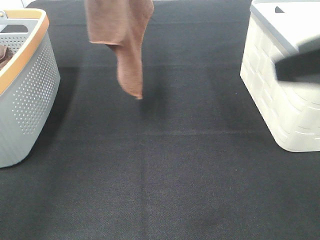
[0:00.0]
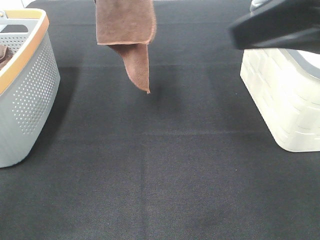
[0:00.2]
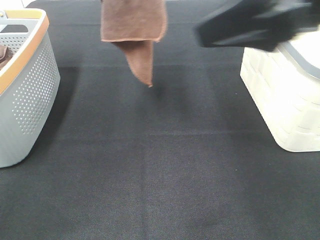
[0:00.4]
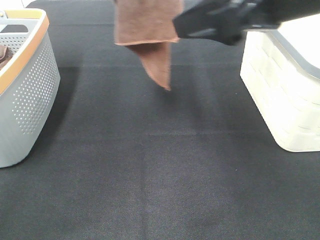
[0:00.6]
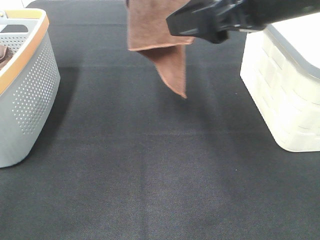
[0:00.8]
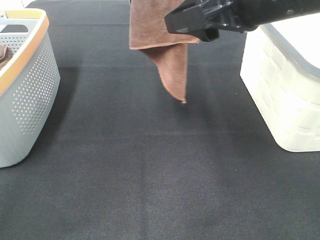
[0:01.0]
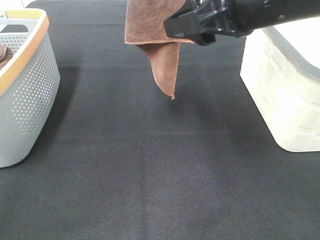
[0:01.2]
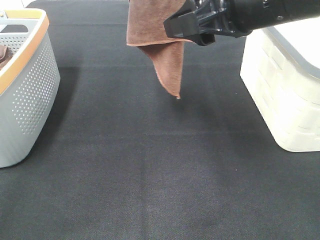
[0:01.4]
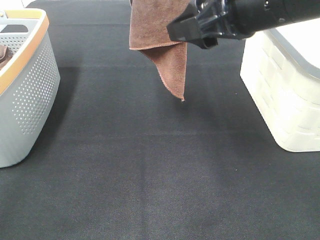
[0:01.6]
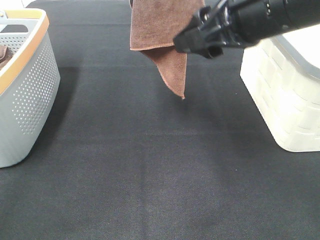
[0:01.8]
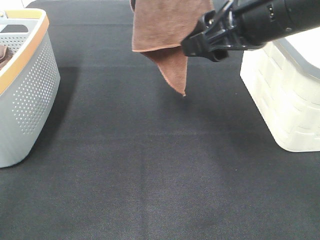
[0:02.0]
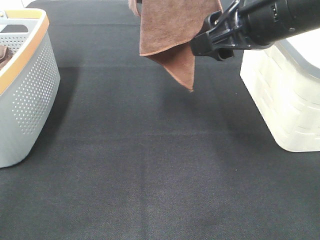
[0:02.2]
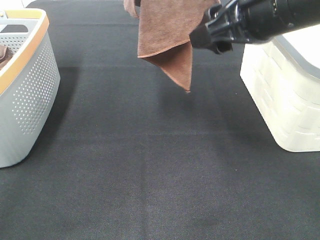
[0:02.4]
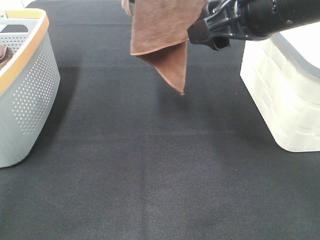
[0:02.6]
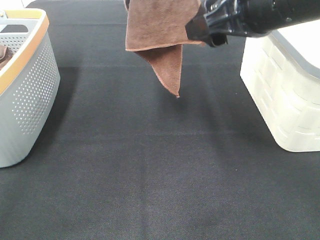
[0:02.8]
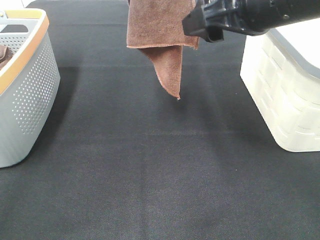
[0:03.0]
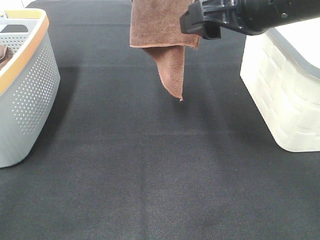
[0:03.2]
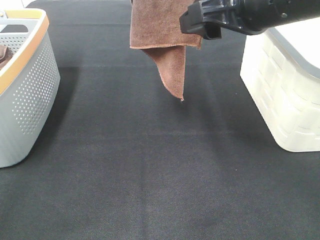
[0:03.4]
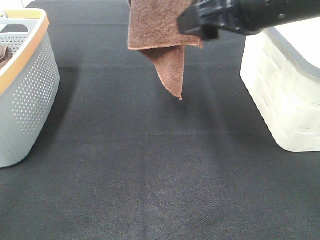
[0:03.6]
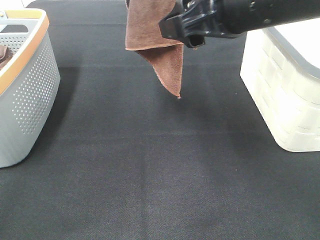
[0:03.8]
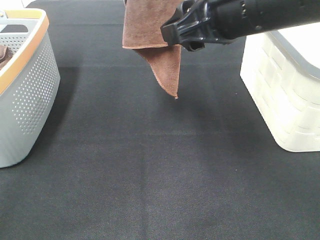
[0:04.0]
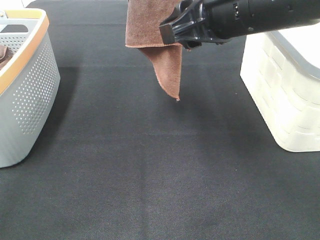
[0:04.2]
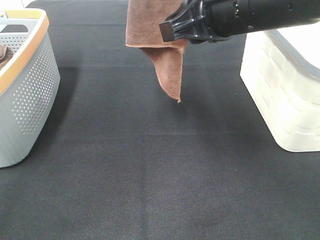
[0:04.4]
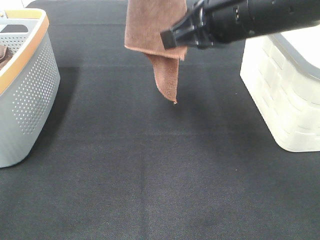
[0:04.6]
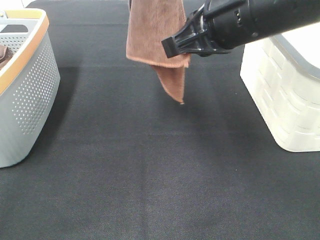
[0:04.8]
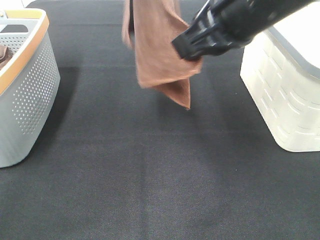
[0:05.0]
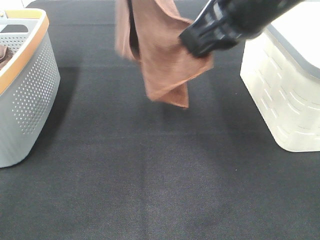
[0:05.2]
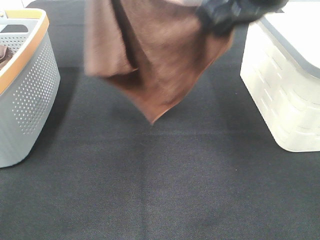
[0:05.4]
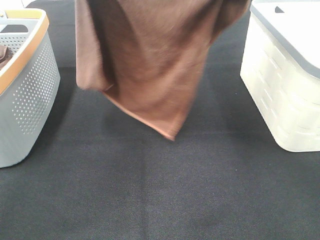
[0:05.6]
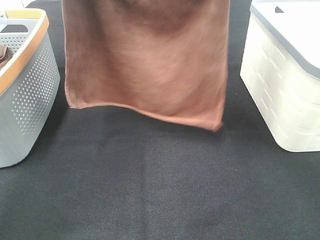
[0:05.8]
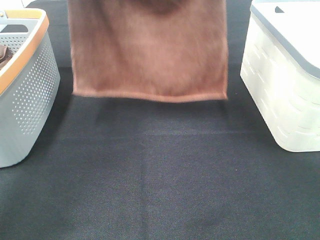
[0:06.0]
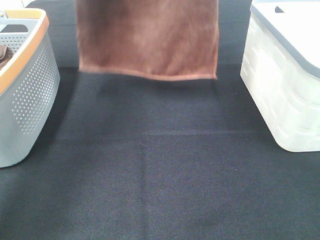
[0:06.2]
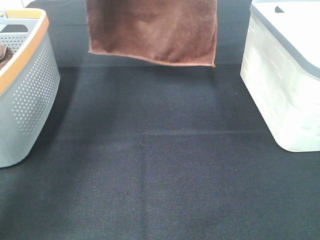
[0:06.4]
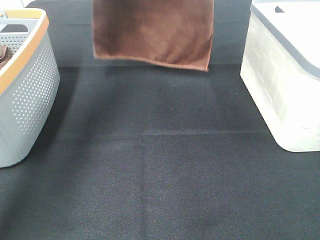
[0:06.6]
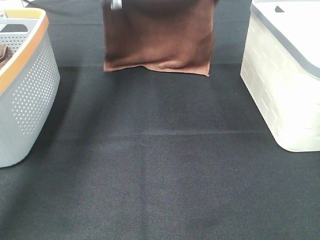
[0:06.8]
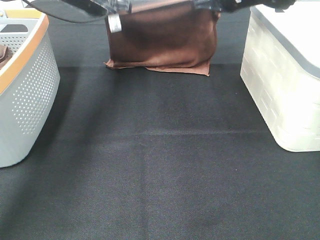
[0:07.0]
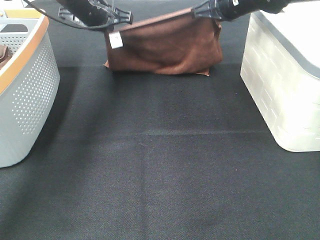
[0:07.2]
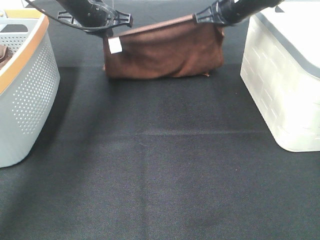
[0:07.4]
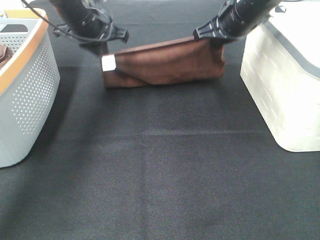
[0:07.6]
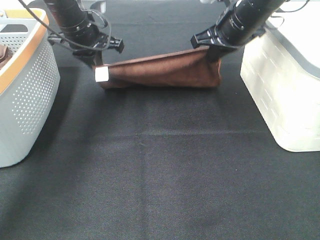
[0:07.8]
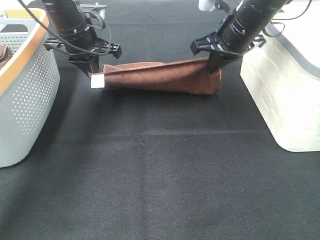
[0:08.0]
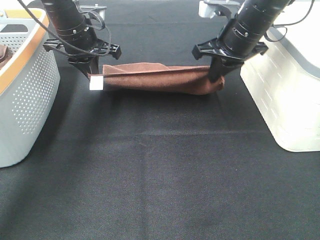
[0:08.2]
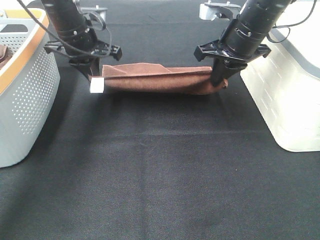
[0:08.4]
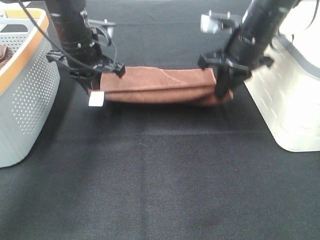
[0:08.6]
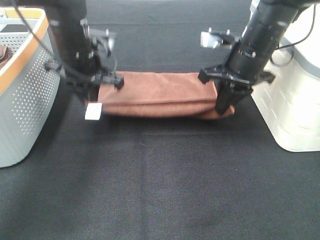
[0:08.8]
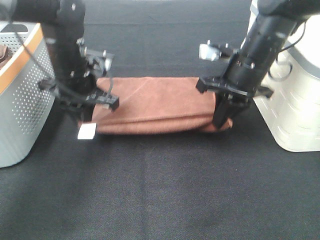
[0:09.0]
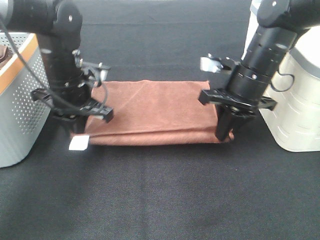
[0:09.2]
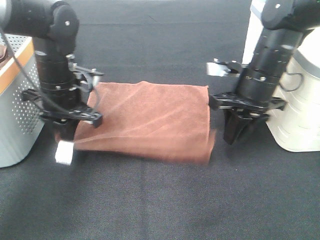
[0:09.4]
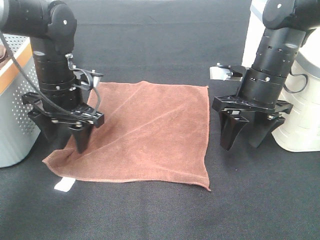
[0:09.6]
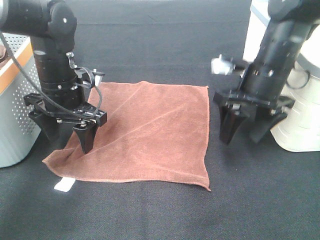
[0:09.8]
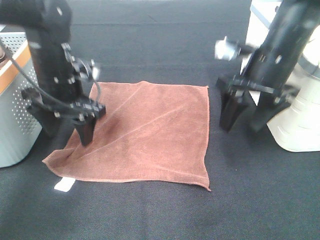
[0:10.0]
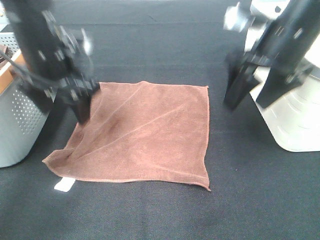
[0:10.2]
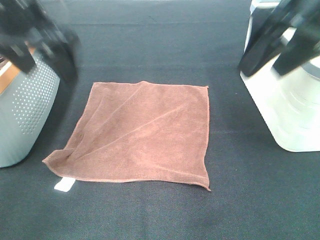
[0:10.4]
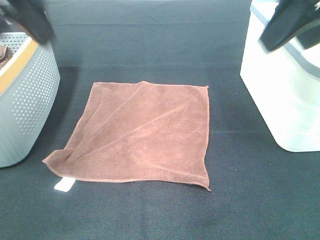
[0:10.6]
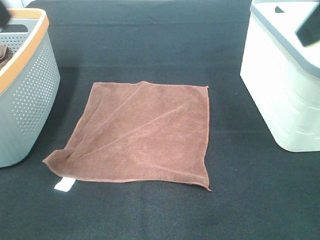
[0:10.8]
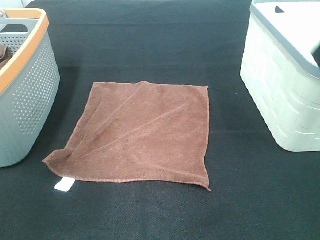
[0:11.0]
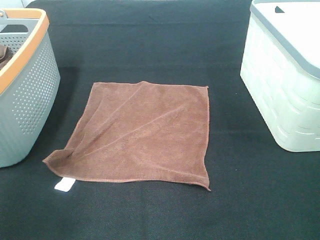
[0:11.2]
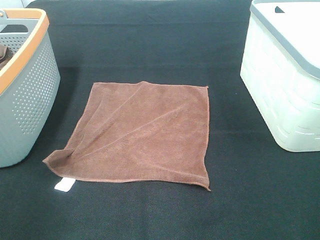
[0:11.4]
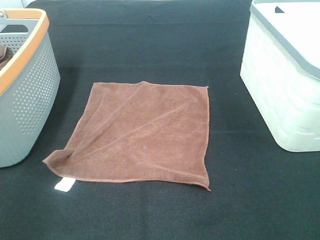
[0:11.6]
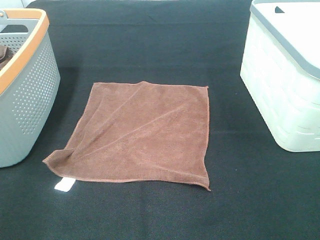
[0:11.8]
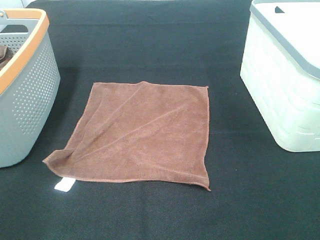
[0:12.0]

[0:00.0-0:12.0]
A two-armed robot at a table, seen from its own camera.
Task of the whole recording: Remove the towel and place it.
Step, 0:00.0 to 0:02.6: Right hand: grab a corner of the brown towel and straighten it.
Step, 0:02.8 to 0:05.4: Left hand: spread the brown towel flat on the table.
Step, 0:02.8 to 0:05.4: Right hand: spread the brown towel flat on the table.
0:00.0 to 0:01.6: The left gripper heads to the right, covering some 5 cm; the right gripper heads forward and to the left, covering some 15 cm.
0:01.6 to 0:03.0: There are only small adjustments of the grippers.
0:03.0 to 0:04.4: The right gripper closes.
0:04.4 to 0:06.0: The right gripper heads upward and forward, covering about 10 cm; the left gripper shifts approximately 15 cm downward, forward and to the left.
0:06.0 to 0:07.6: The left gripper travels downward by approximately 20 cm. Meanwhile the right gripper is displaced downward and forward by roughly 20 cm.
0:07.6 to 0:09.0: Both grippers travel together backward and downward, some 10 cm.
0:09.0 to 0:10.4: The right gripper moves upward and backward, about 20 cm, and opens up. The left gripper moves upward, some 15 cm, and opens.
0:10.4 to 0:12.0: The right gripper shifts about 25 cm backward. The left gripper travels backward and to the left by some 30 cm.

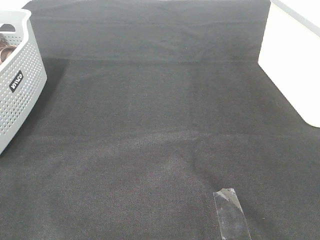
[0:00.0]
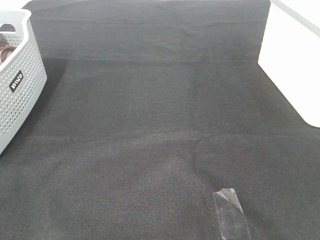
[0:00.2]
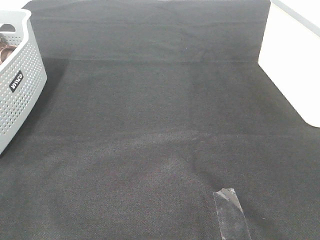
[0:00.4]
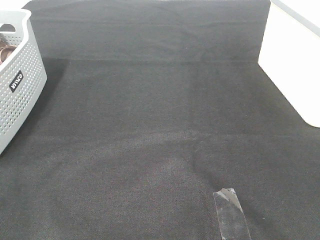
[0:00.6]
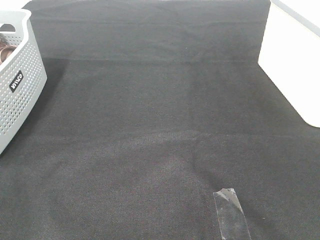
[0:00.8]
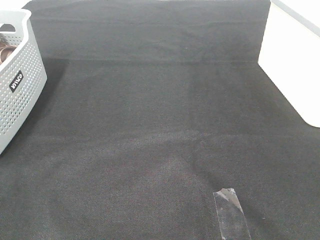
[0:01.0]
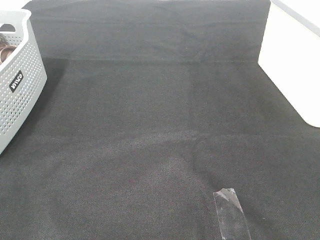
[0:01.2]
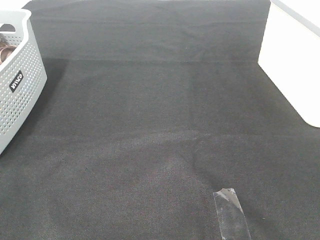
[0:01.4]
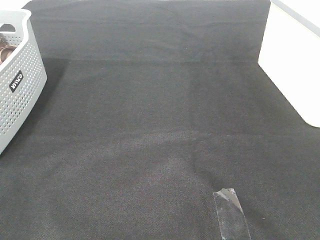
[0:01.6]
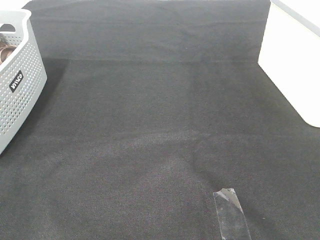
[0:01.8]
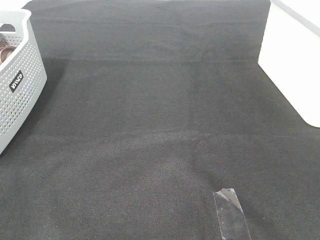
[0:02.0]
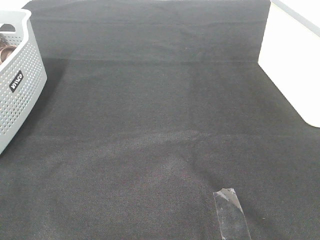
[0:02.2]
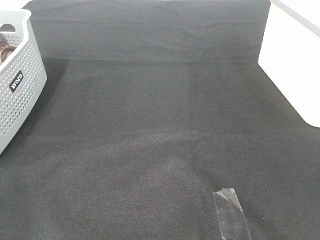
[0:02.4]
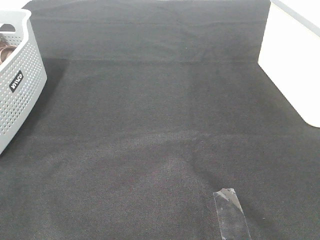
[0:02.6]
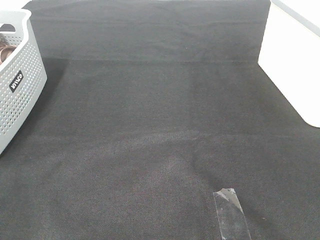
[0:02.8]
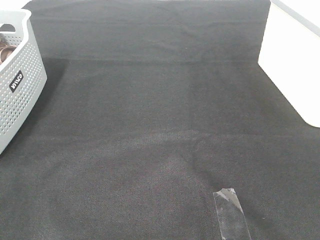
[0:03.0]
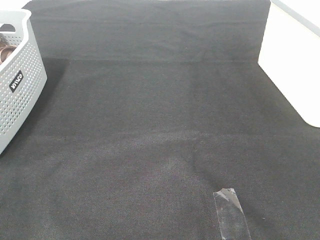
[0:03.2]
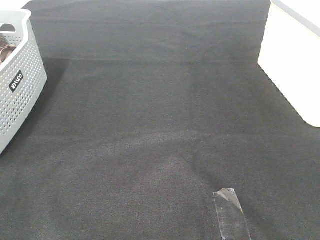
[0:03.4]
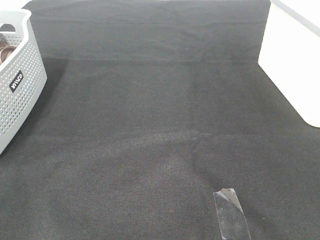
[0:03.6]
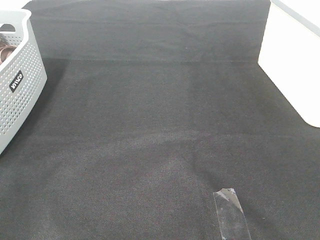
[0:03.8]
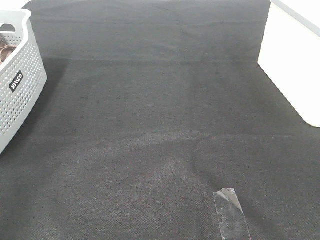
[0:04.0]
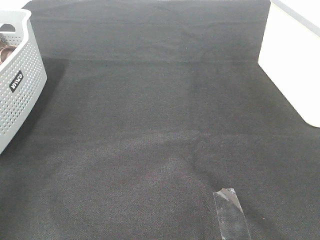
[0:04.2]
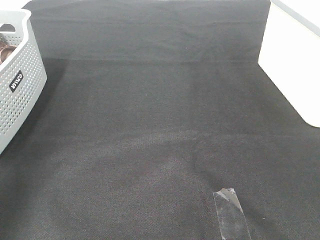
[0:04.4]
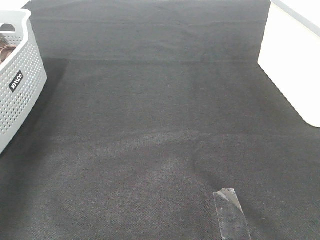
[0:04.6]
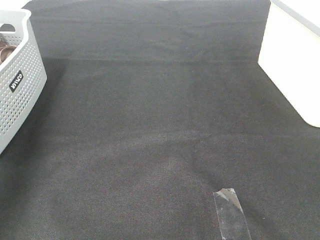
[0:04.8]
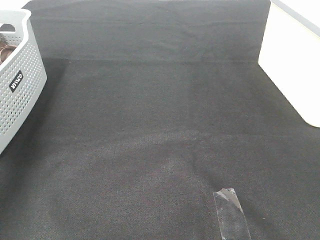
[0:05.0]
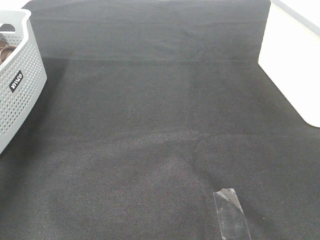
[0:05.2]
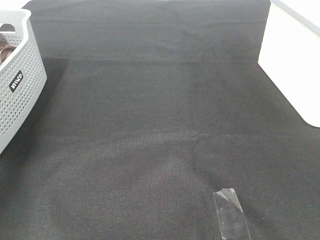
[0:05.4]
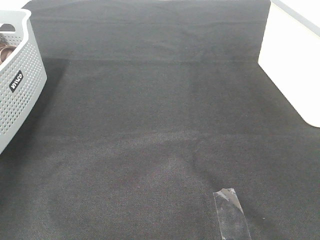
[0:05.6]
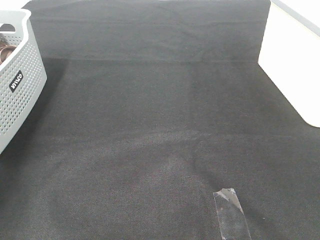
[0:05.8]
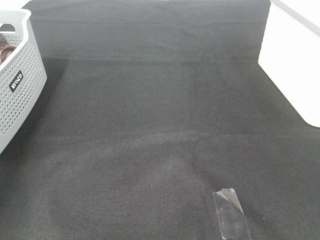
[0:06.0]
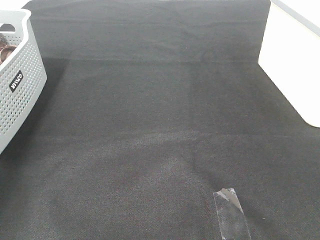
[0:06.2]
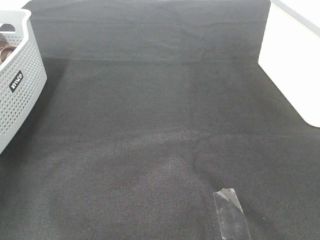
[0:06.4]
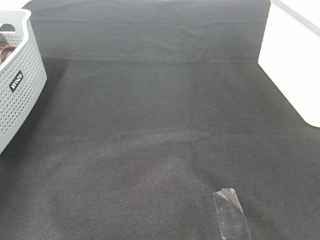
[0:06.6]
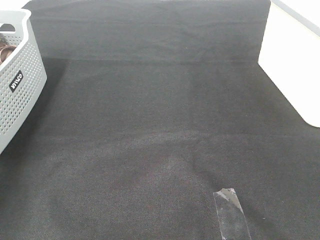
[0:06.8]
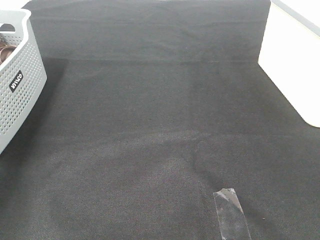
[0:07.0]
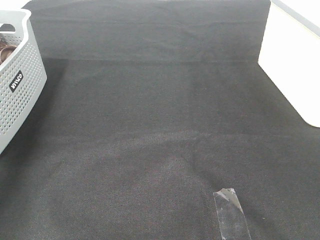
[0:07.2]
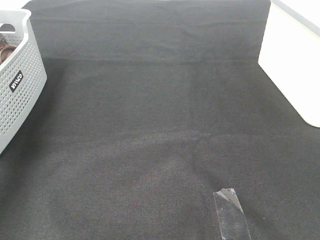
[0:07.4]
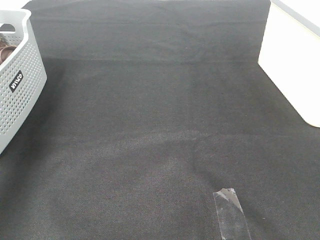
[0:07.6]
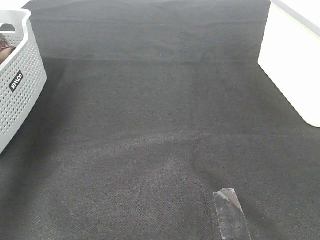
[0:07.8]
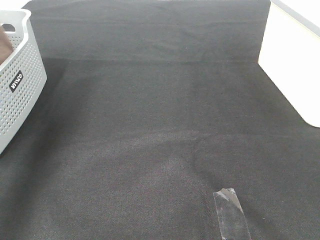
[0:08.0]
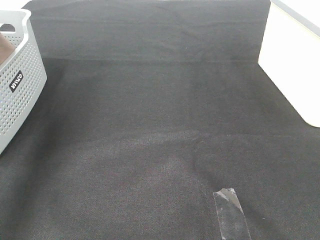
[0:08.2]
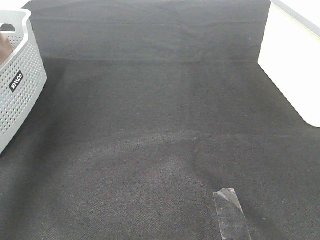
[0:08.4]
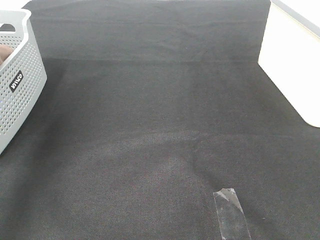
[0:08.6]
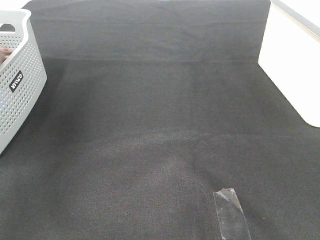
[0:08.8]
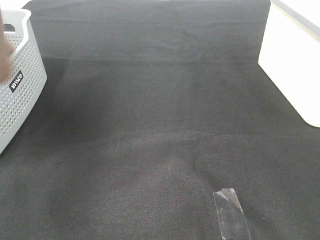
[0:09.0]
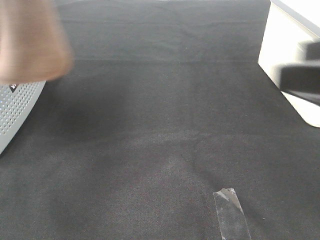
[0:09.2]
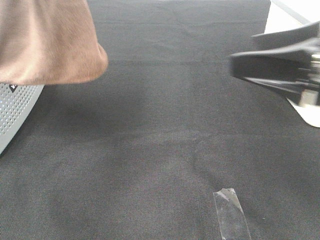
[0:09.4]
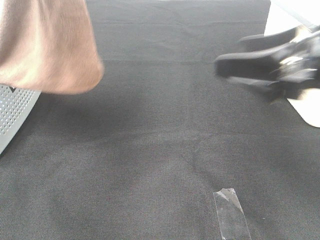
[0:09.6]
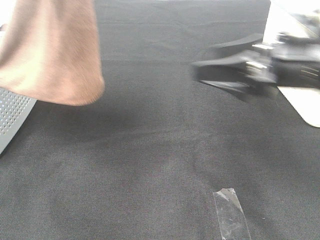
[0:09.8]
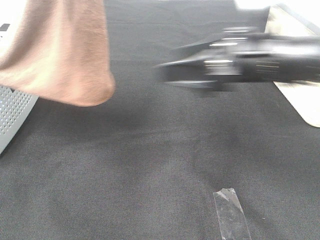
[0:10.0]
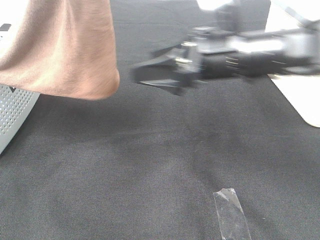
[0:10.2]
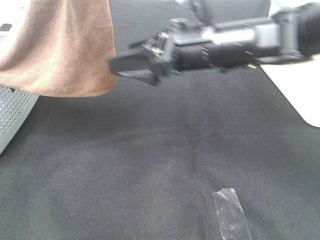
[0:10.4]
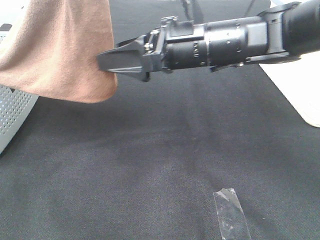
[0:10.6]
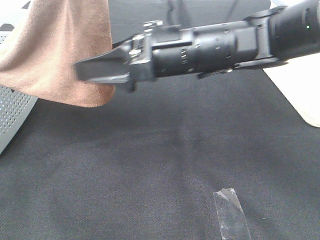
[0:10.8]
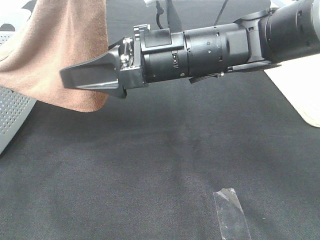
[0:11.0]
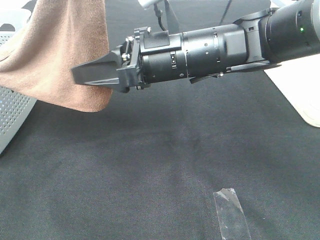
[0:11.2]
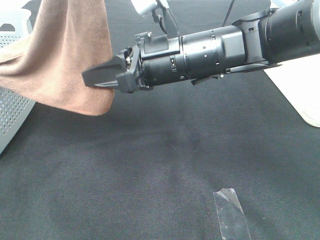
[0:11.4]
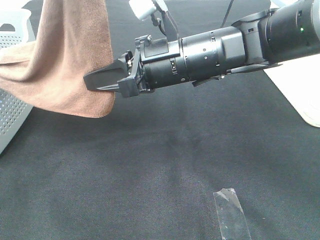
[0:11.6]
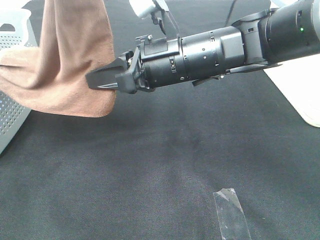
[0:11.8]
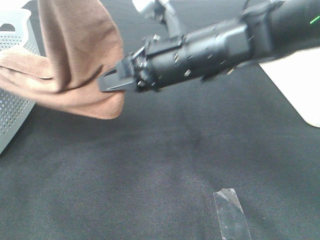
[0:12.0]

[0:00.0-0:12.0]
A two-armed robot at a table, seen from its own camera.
Task of the whole recording: Remove the towel and place it.
Step, 0:08.6 to 0:11.0: Right hand: grab a corner of the brown towel and straighten it.
0:00.0 to 0:03.0: Neither gripper changes place.
0:03.0 to 0:04.4: The left gripper is displaced forward and upward by approximately 25 cm.
0:07.6 to 0:09.0: The left gripper is displaced upward, to the right and backward by approximately 25 cm.
0:09.0 to 0:10.4: The right gripper travels forward and to the left by roughly 30 cm; the left gripper shifts roughly 10 cm to the right.
0:10.4 to 0:12.0: The right gripper closes.
